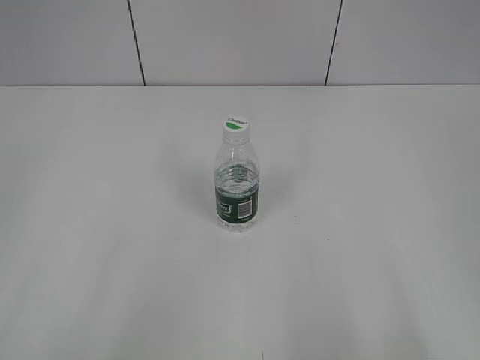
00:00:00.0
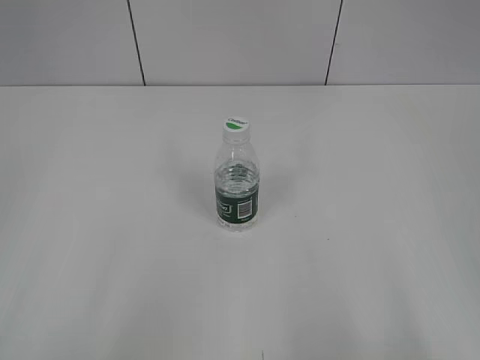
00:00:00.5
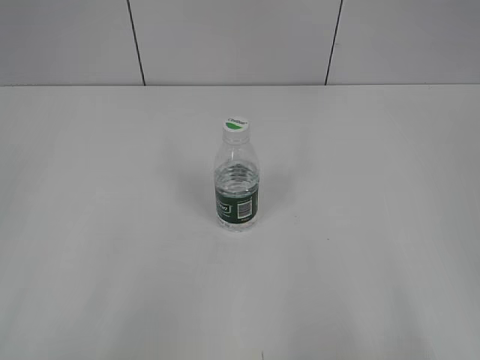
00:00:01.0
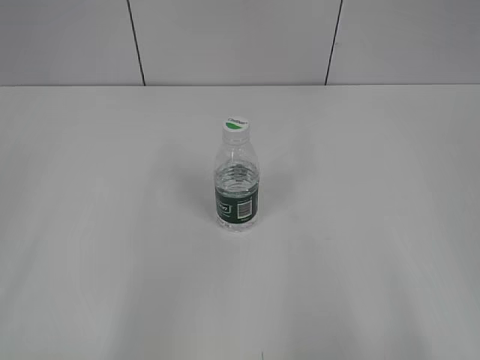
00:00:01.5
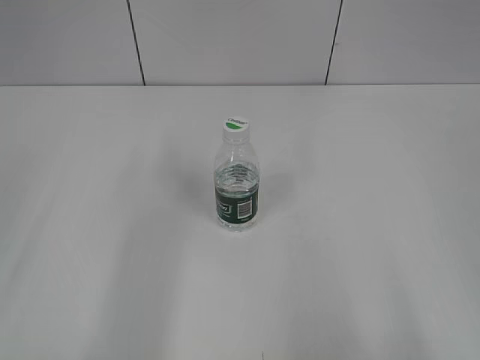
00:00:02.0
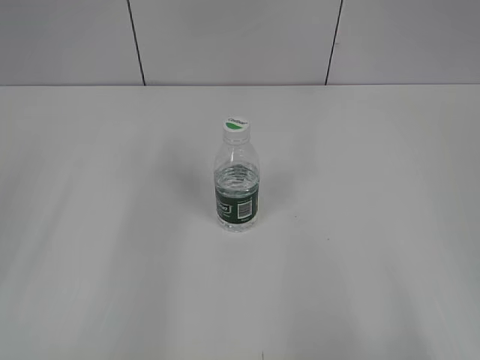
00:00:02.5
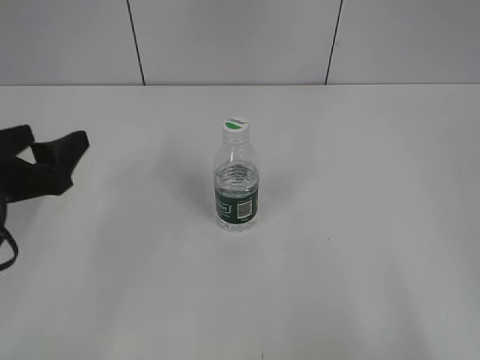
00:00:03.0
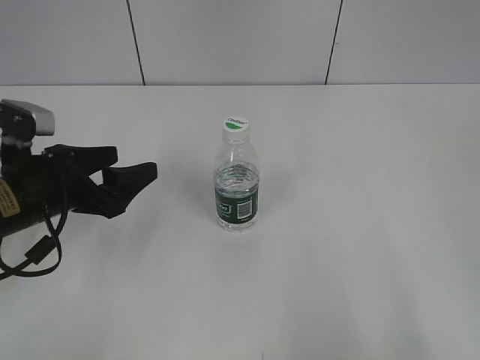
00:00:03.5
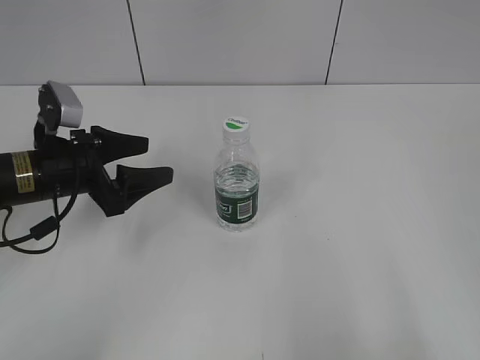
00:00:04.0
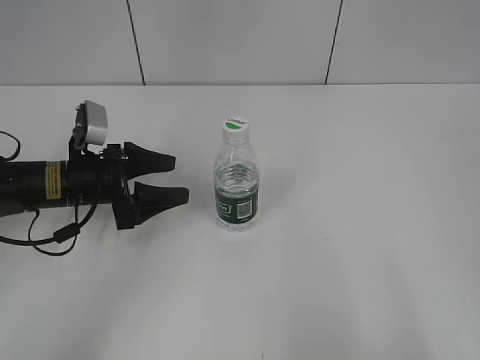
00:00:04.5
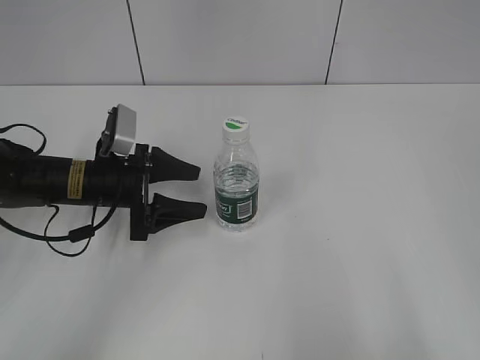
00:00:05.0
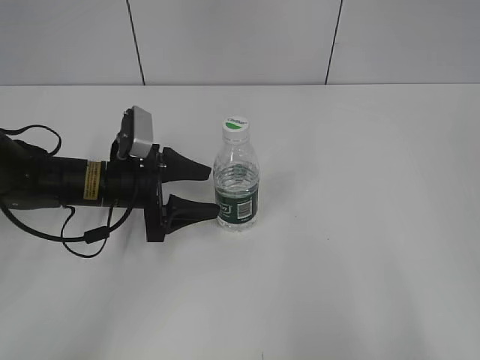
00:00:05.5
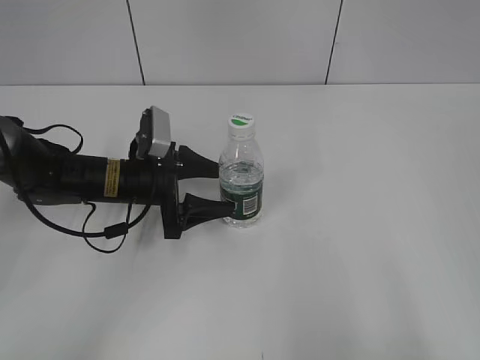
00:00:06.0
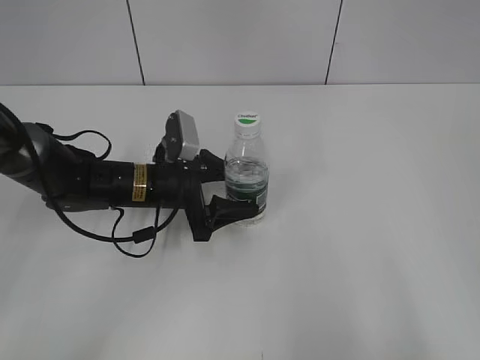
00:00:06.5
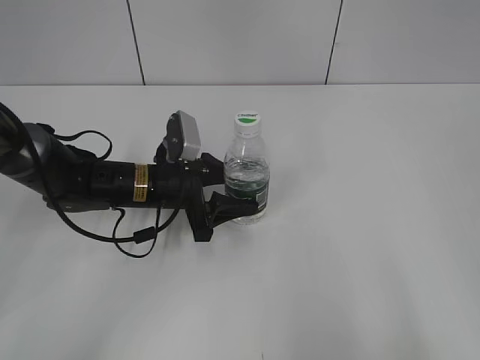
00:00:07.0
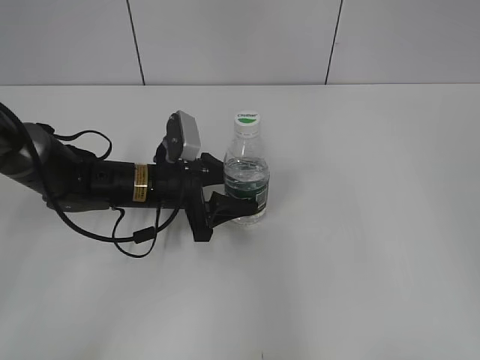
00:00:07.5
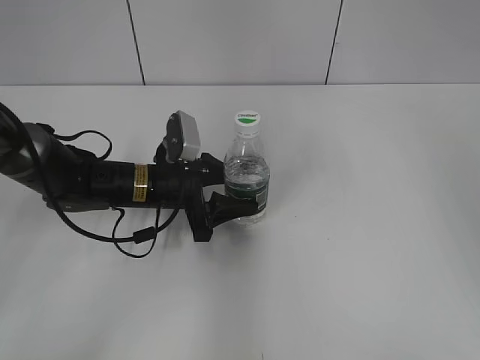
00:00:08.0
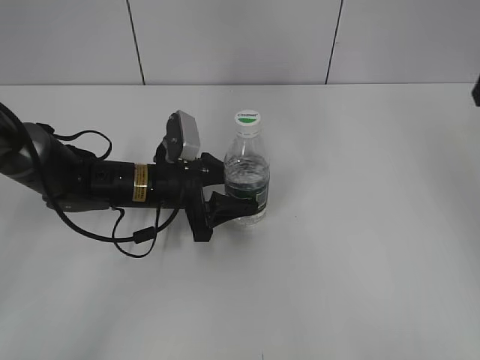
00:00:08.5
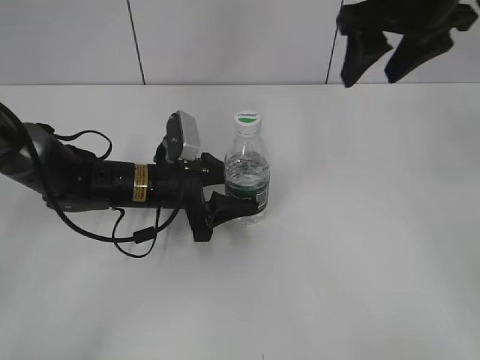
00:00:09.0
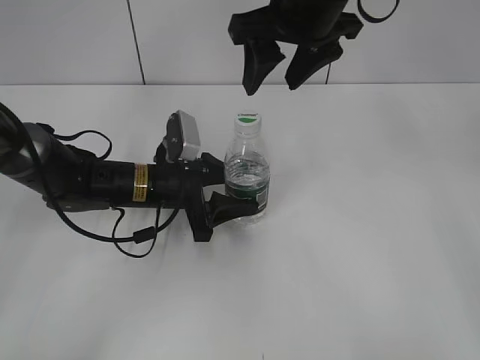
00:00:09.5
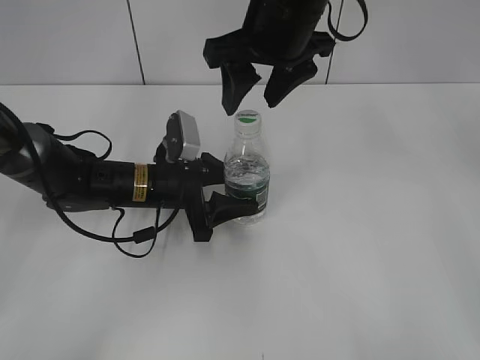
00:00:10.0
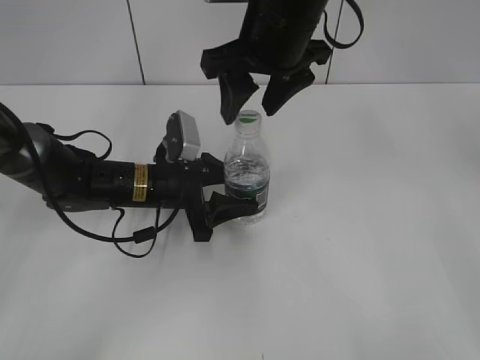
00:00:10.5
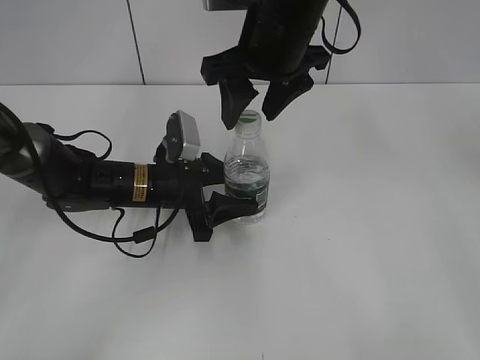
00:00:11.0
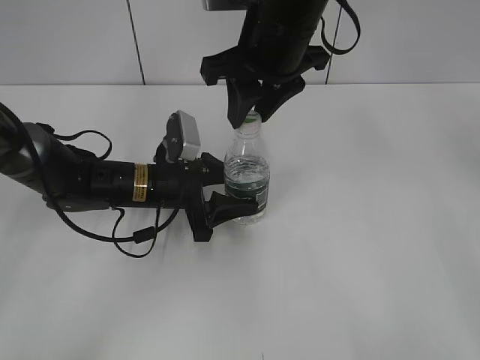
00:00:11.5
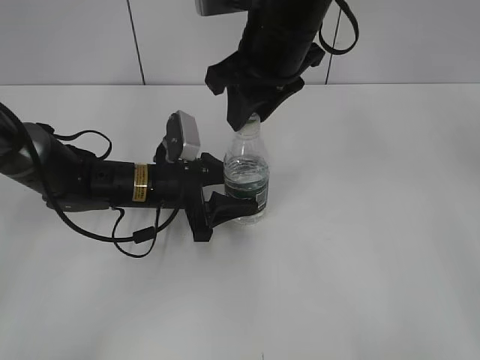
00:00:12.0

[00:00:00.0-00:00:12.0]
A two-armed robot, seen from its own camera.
Step, 00:00:00.0 to 00:00:06.5: Grasp the bottle and move it to the center of the table with the left gripper.
00:00:02.0 to 00:00:04.0: The left gripper is displaced forward, downward and to the right by roughly 25 cm.
00:00:04.0 to 00:00:06.0: The left gripper moves to the right and downward, roughly 10 cm.
00:00:06.0 to 00:00:08.0: The left gripper closes its fingers. The right gripper is displaced forward by approximately 20 cm.
00:00:08.0 to 00:00:10.0: The right gripper is displaced to the left and forward by about 30 cm.
00:00:10.0 to 00:00:12.0: The right gripper closes its fingers.

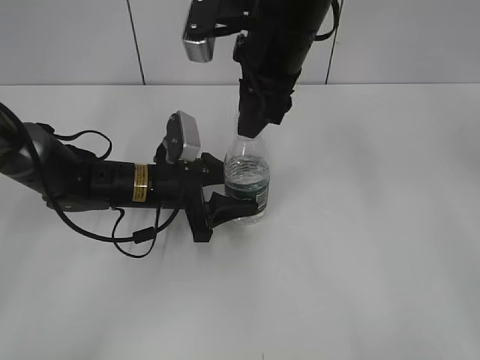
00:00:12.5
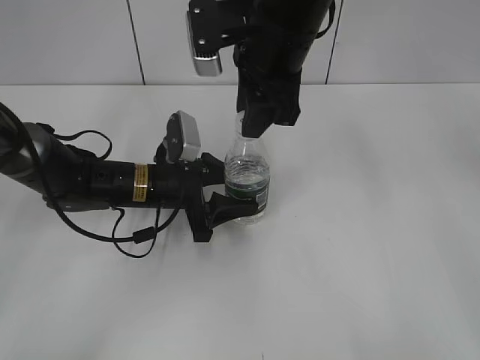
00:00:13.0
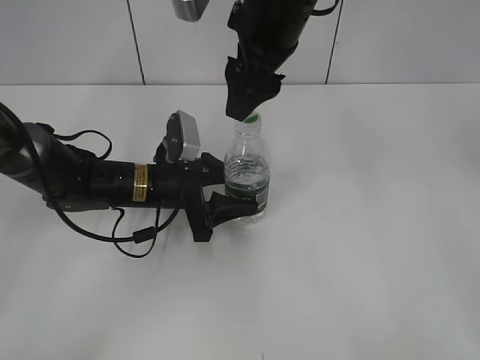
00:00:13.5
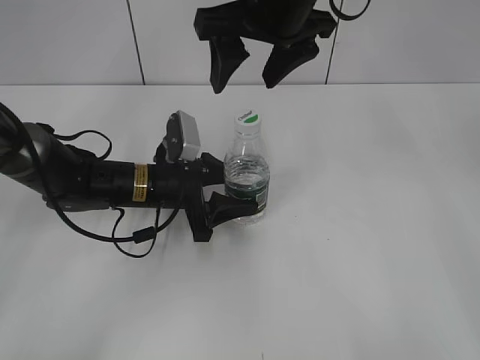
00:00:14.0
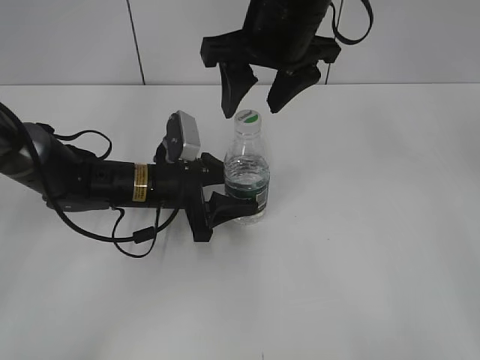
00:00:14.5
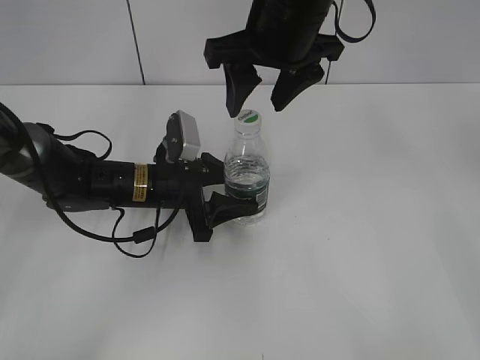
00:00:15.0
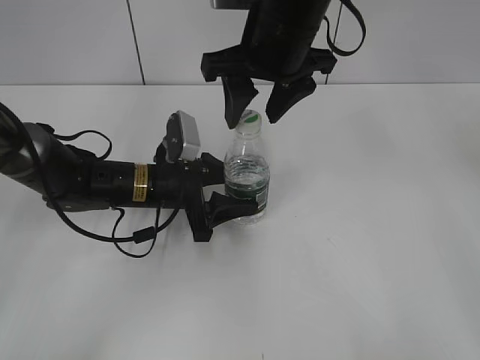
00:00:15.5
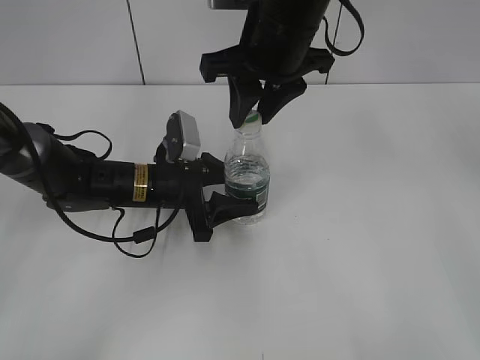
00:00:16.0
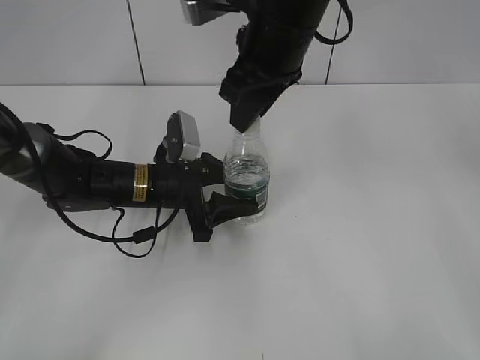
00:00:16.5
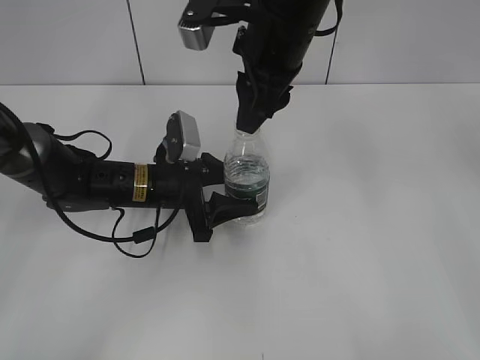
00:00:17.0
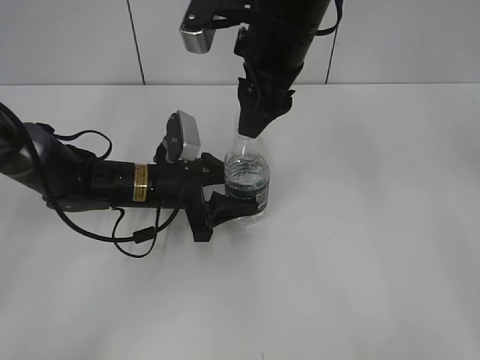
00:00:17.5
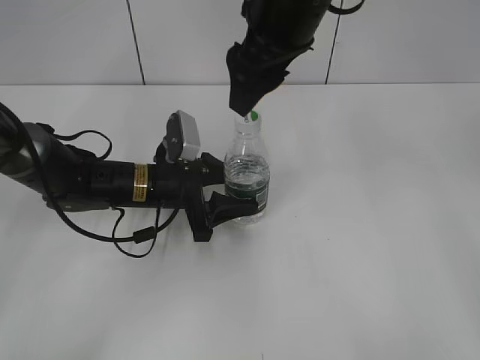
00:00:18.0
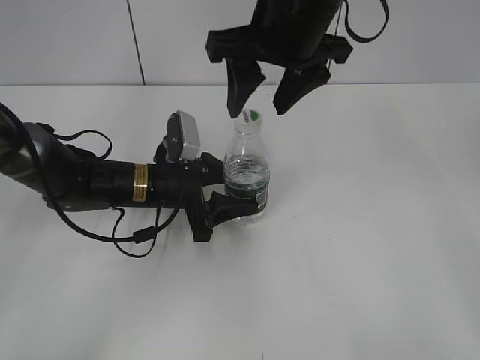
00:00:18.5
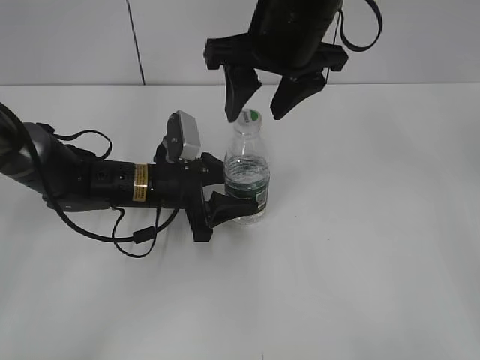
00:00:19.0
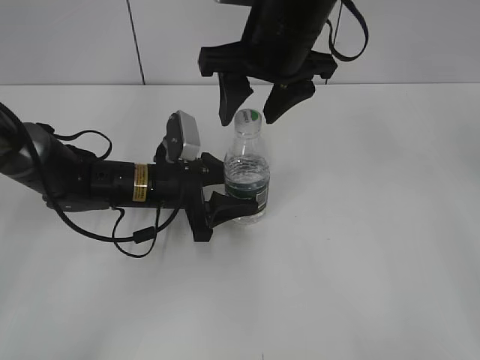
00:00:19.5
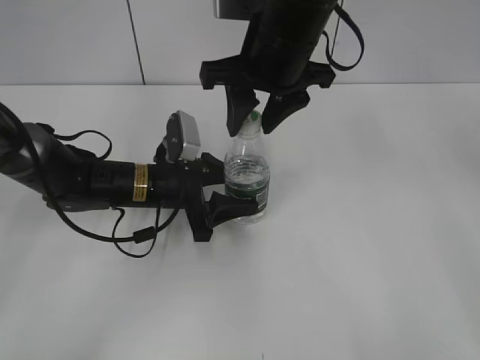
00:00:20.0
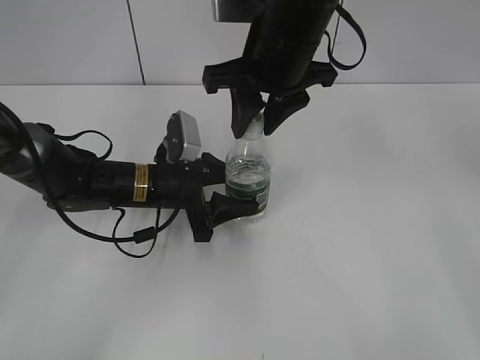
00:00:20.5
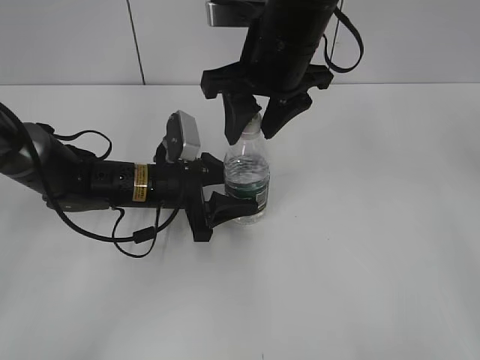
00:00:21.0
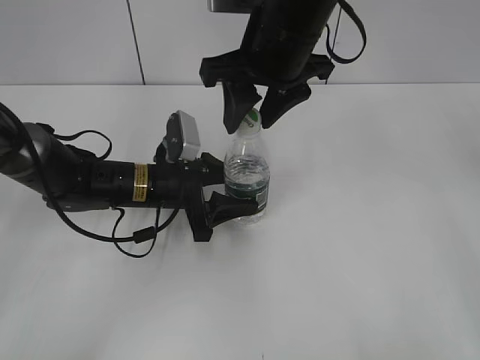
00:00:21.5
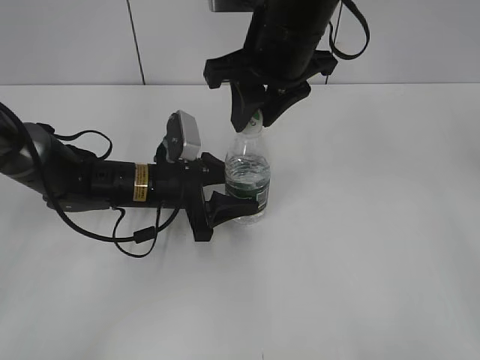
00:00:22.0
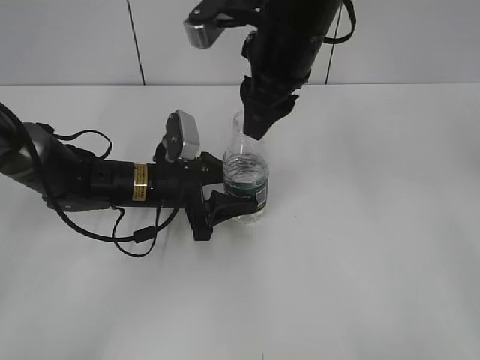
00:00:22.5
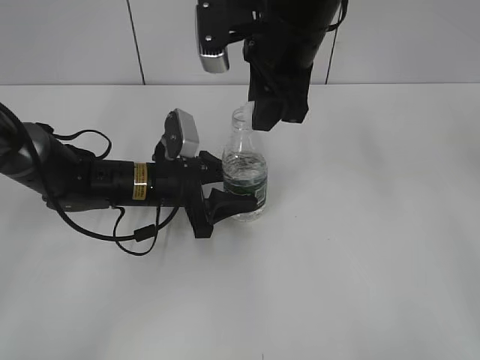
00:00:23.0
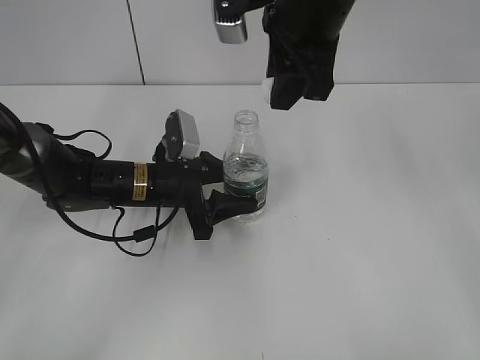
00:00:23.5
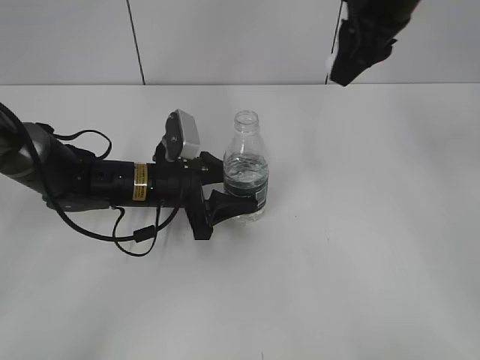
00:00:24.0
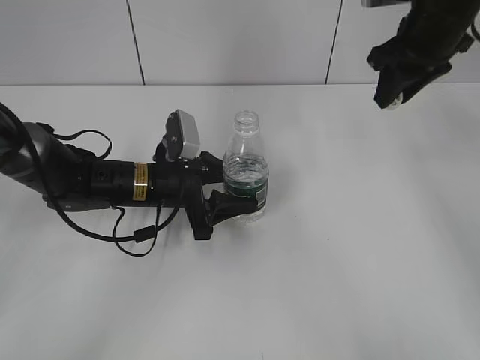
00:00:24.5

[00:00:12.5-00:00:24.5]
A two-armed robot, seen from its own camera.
Step, 00:00:12.5 to 00:00:23.0: Unscrew the bottle cap with the right gripper while holding the bottle with the left gripper.
00:00:12.5 to 00:00:14.5: The right gripper opens.
00:00:14.5 to 00:00:16.5: The right gripper closes.
00:00:16.5 to 00:00:18.5: The right gripper opens.
00:00:18.5 to 00:00:20.5: The right gripper closes.
00:00:22.5 to 00:00:24.5: The right gripper is displaced to the right and forward by about 20 cm.

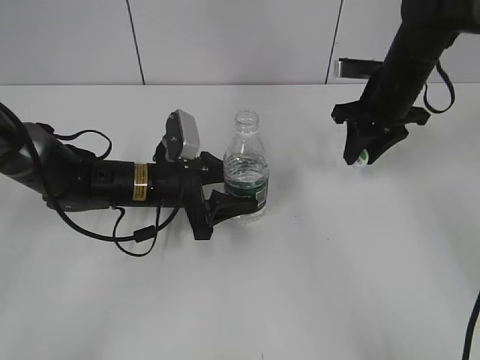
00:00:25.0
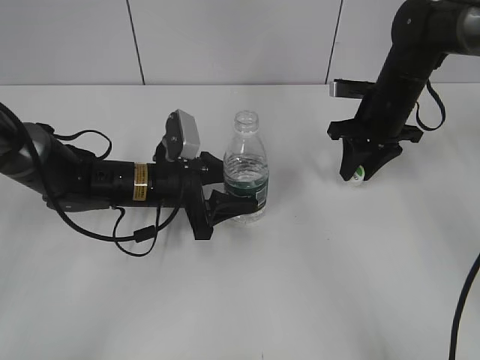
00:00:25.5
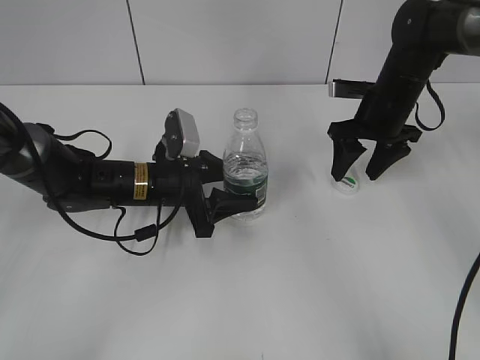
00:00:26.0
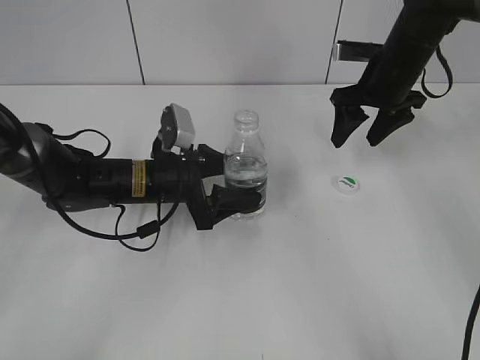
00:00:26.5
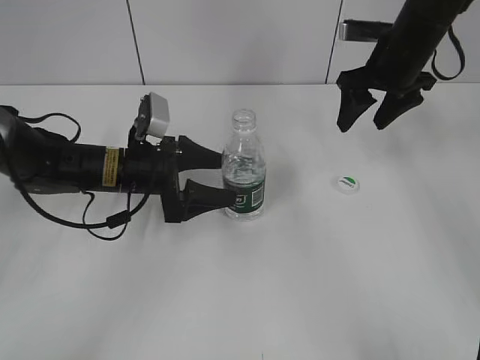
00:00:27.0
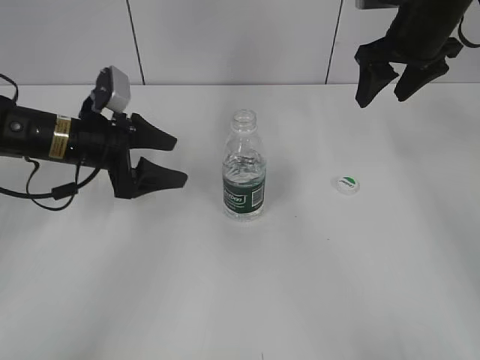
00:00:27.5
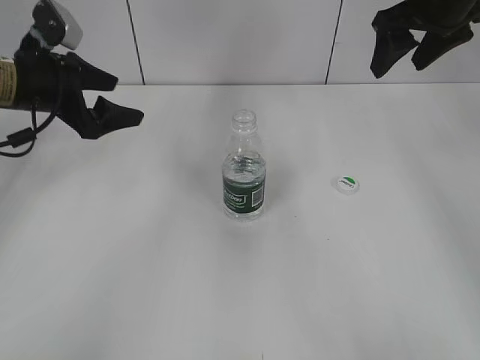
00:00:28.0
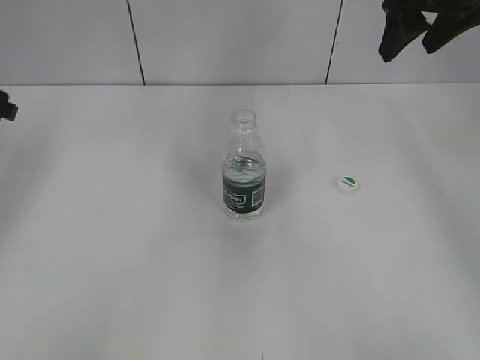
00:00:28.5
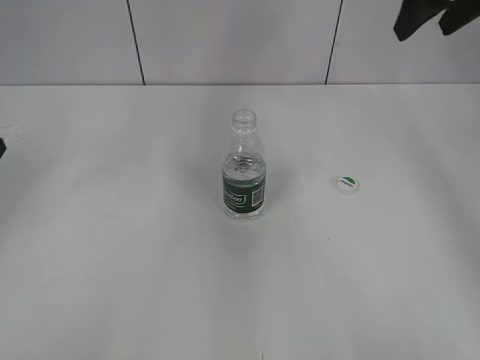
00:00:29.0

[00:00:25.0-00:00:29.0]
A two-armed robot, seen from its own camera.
Step, 00:00:26.5 to 00:00:27.0: Place the bottle on the table with the left gripper.
00:00:25.0 to 00:00:27.0: The right gripper opens. The left gripper opens up.
00:00:27.0 to 00:00:29.0: The left gripper shifts roughly 25 cm to the left and upward. Meanwhile the right gripper goes approximately 15 cm upward.
